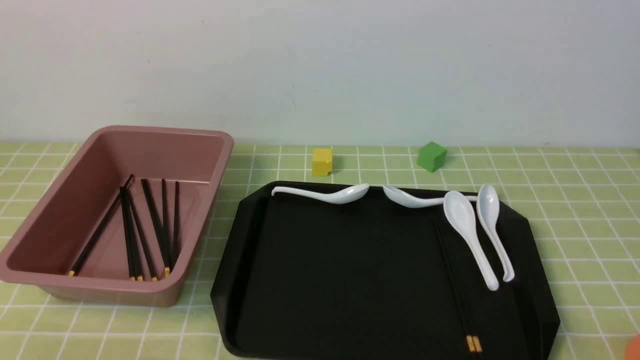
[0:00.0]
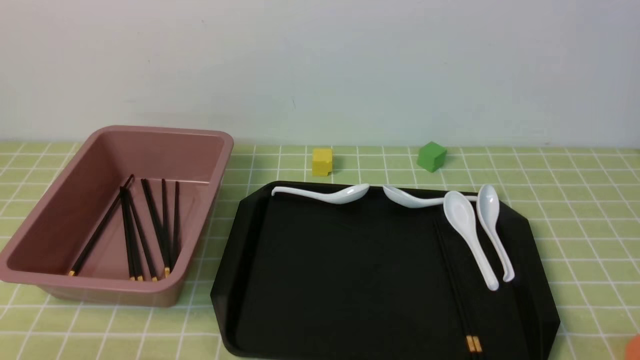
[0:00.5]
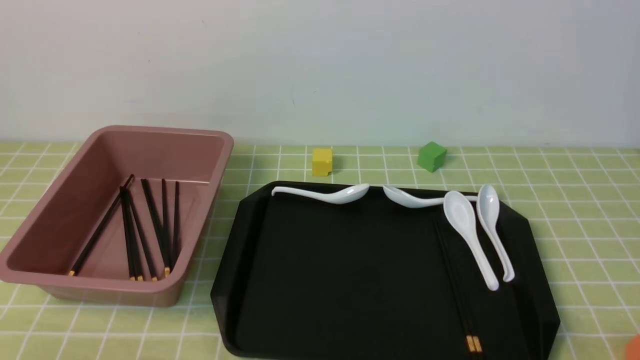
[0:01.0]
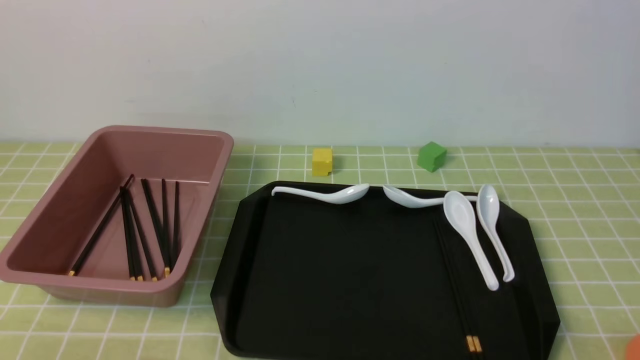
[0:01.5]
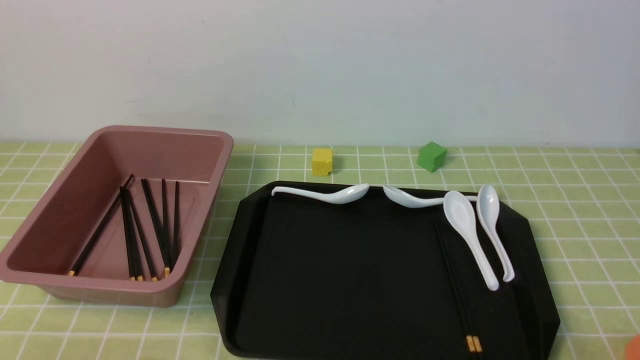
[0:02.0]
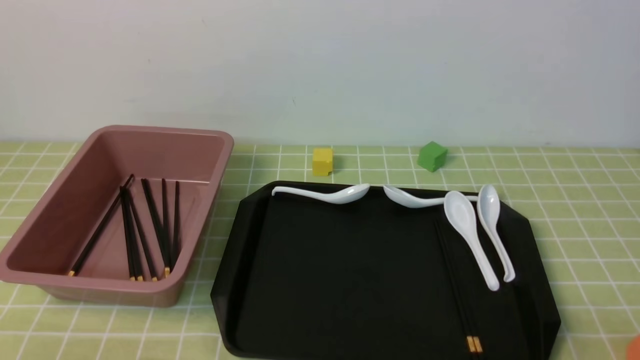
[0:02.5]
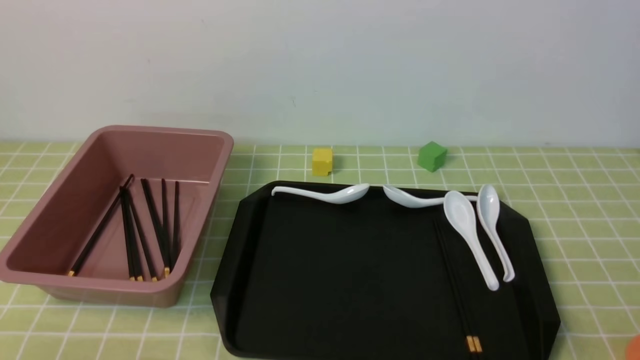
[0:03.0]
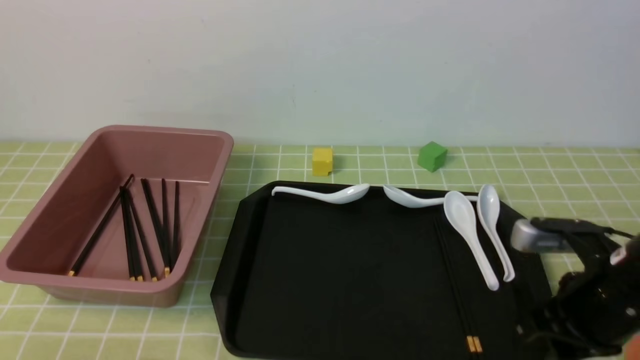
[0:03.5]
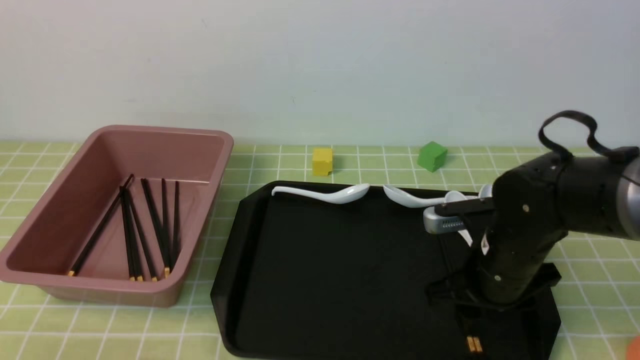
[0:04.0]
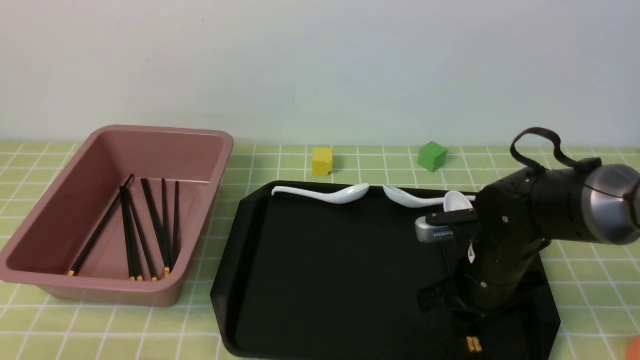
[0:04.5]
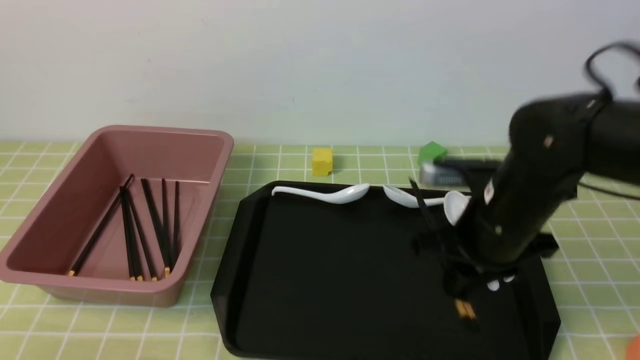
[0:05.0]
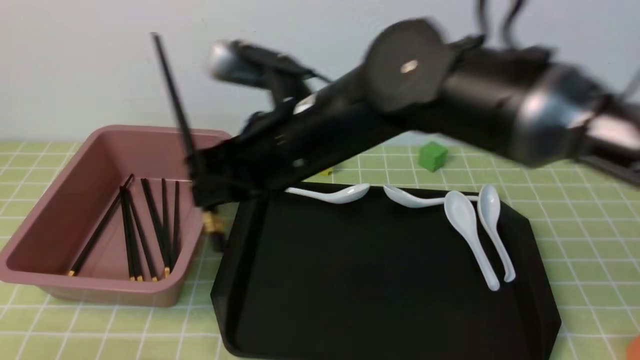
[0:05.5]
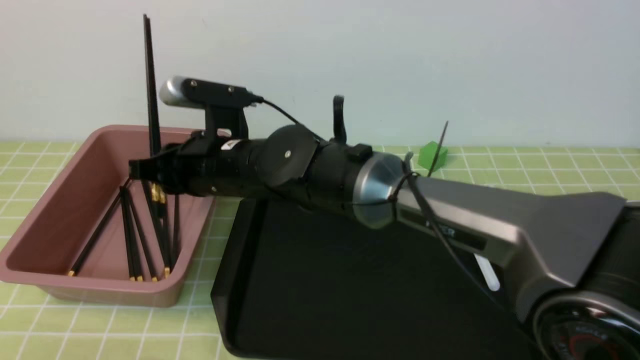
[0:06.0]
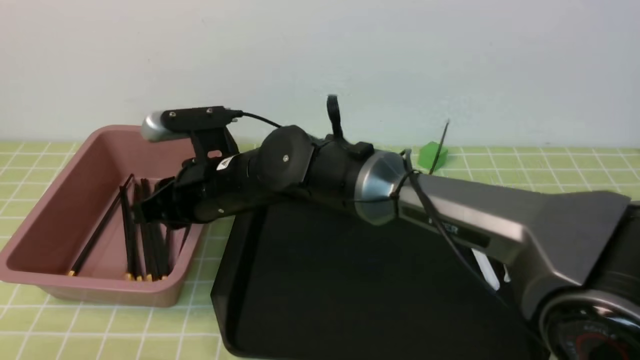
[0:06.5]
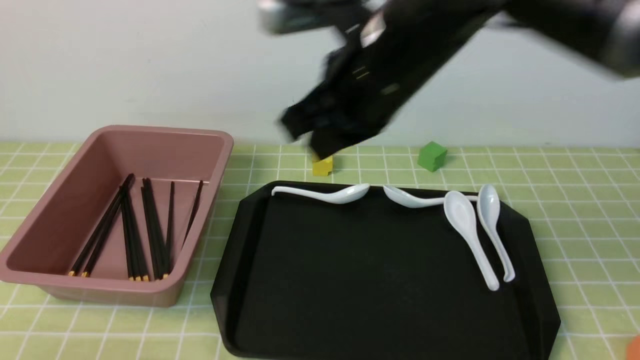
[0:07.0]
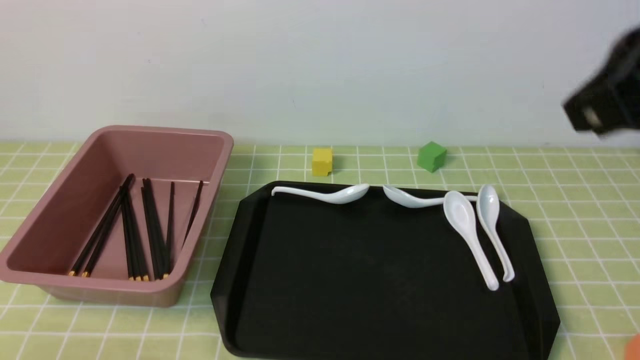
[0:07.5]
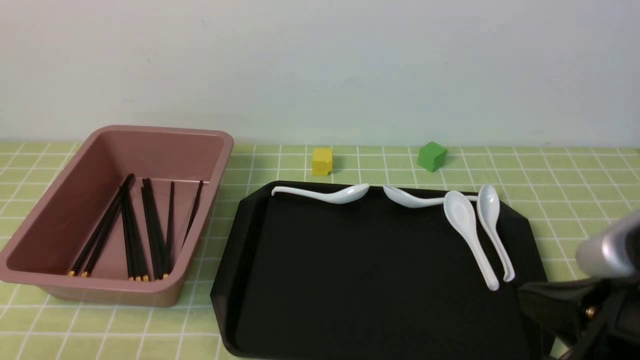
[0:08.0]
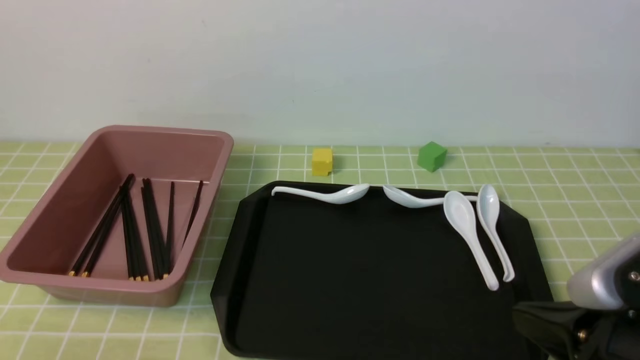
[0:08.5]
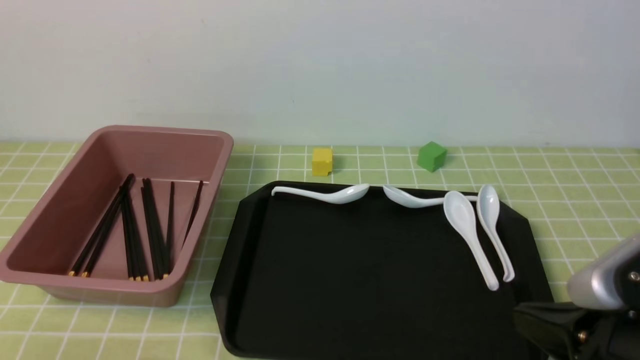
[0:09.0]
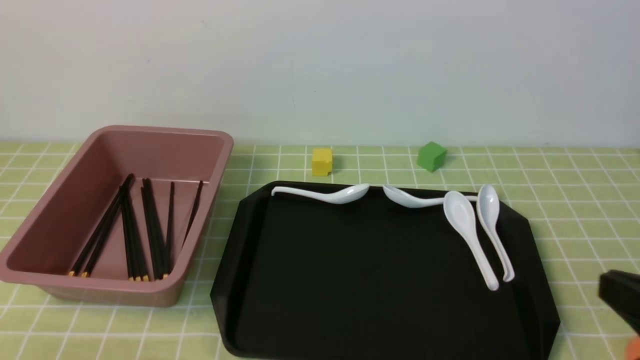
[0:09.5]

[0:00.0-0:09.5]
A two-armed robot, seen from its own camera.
Step, 0:00.0 to 0:05.0: use the right arm to grab a pair of chopsticks.
Step, 0:05.5 to 0:06.5: use the right arm to put the chopsticks into the lunch box.
0:02.0 to 0:04.0: The right gripper travels forward and to the left by approximately 25 cm, and closes, then reopens.
0:04.0 to 0:05.5: The right gripper travels to the left and upward by about 25 cm, and closes its fingers.
0:05.5 to 0:07.5: The right gripper goes approximately 30 cm to the right, backward and upward, and closes up.
0:07.5 to 0:09.5: The right gripper heads downward, backward and to the right, covering approximately 20 cm.

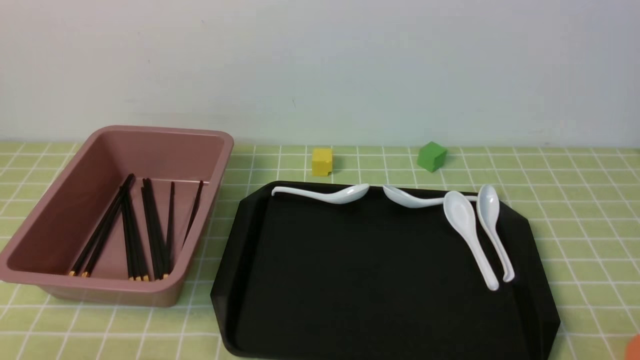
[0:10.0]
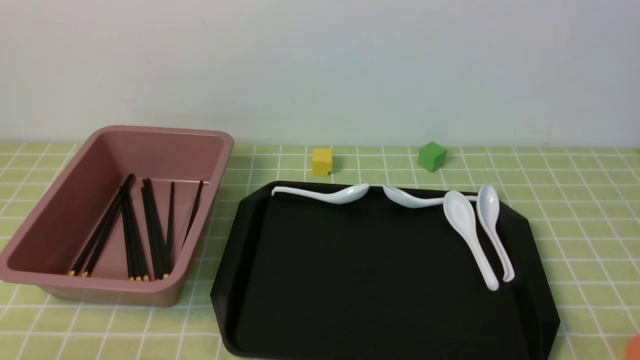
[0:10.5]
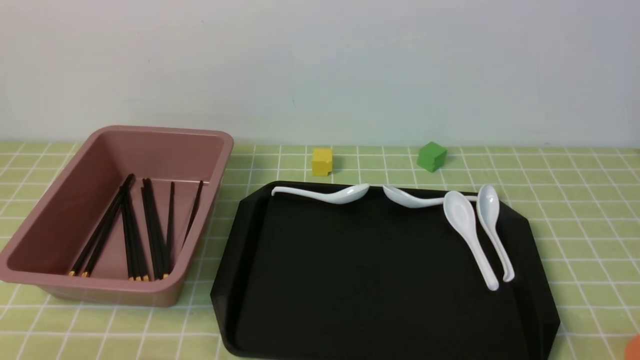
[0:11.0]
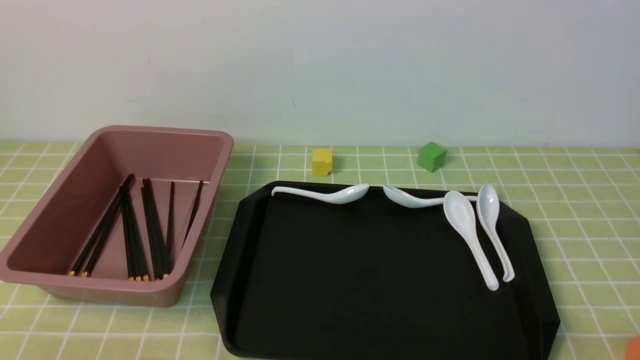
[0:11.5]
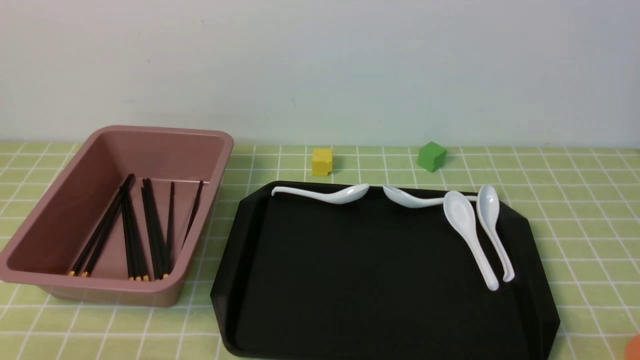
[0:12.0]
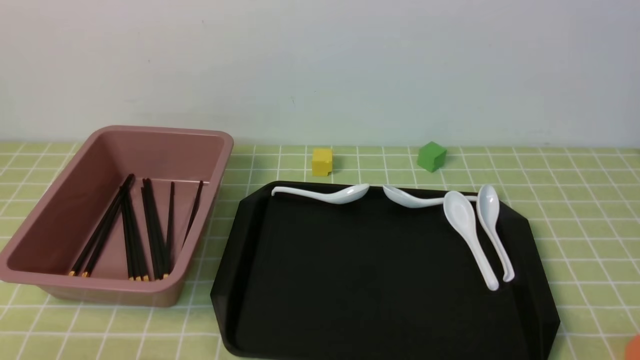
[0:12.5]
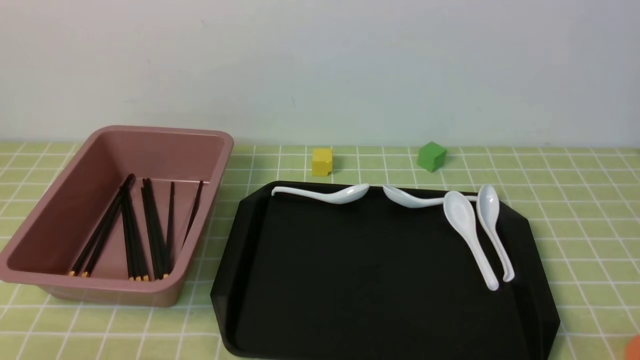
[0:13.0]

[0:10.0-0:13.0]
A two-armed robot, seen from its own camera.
0:11.5 to 0:13.0: Both grippers stay put.
